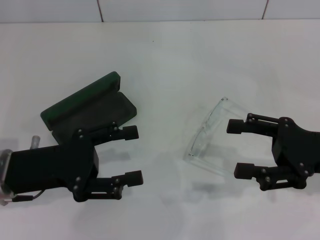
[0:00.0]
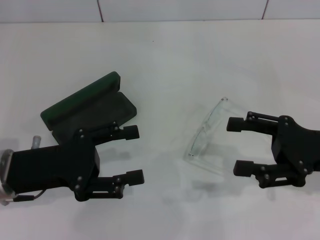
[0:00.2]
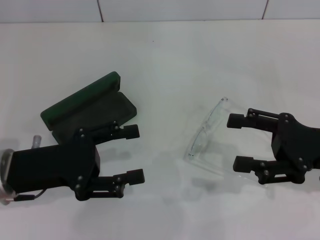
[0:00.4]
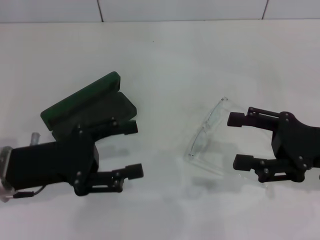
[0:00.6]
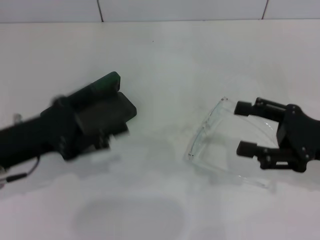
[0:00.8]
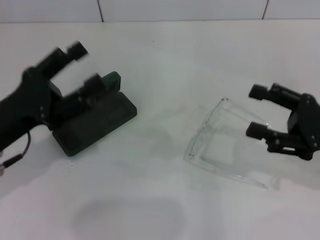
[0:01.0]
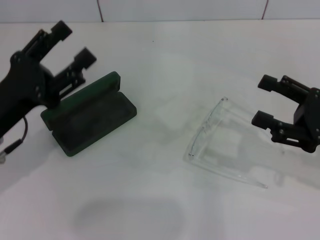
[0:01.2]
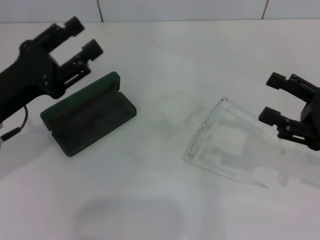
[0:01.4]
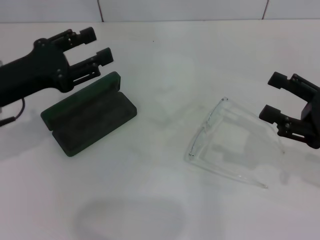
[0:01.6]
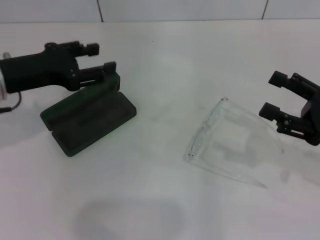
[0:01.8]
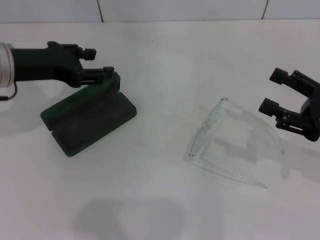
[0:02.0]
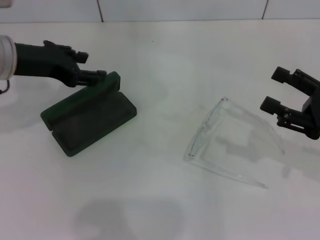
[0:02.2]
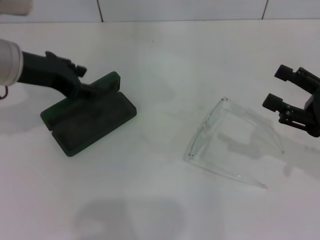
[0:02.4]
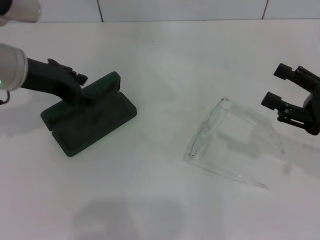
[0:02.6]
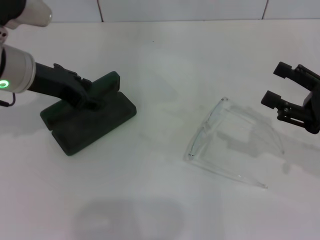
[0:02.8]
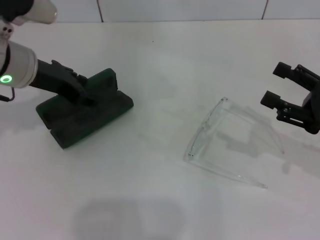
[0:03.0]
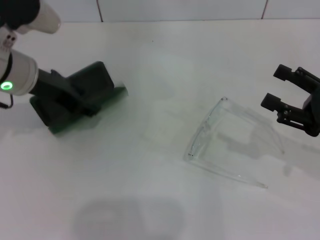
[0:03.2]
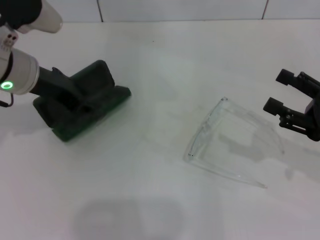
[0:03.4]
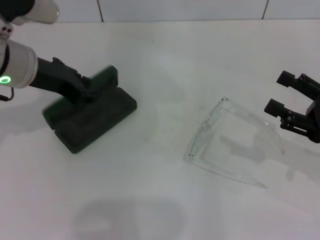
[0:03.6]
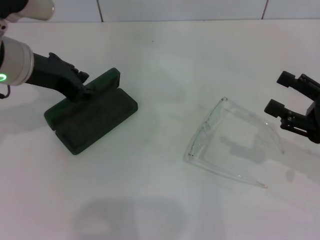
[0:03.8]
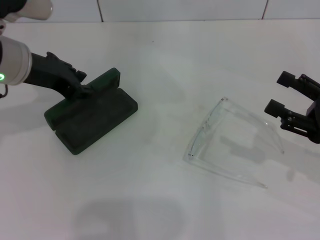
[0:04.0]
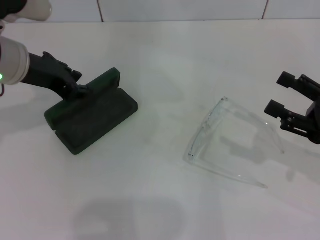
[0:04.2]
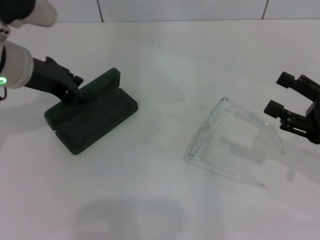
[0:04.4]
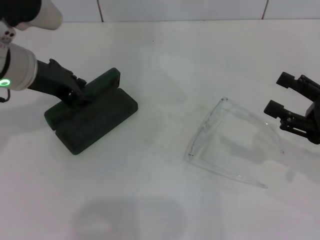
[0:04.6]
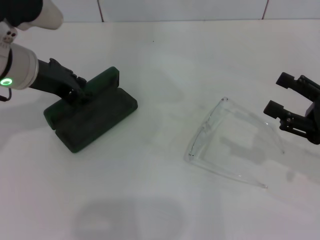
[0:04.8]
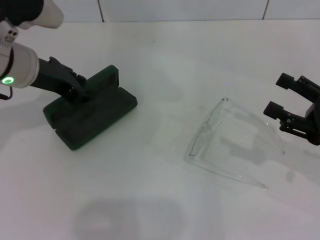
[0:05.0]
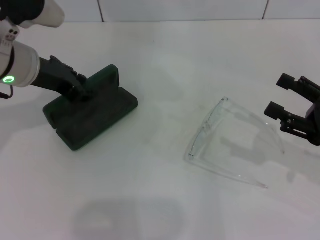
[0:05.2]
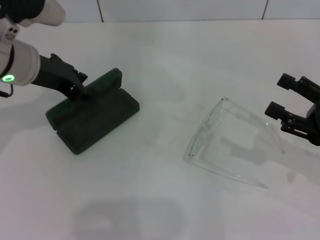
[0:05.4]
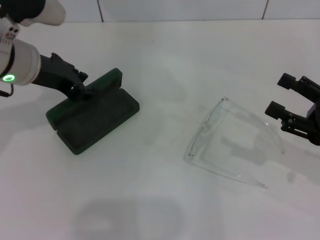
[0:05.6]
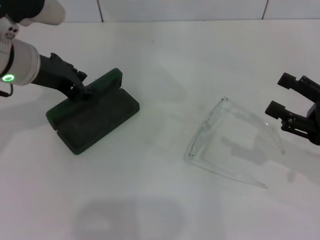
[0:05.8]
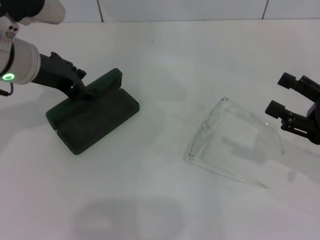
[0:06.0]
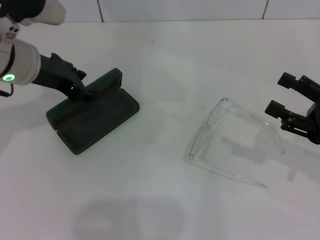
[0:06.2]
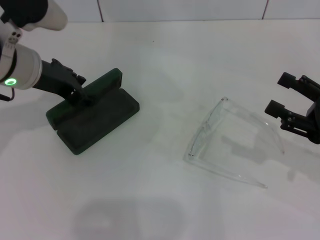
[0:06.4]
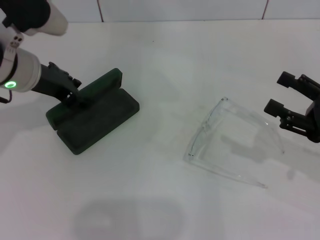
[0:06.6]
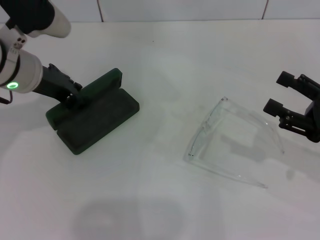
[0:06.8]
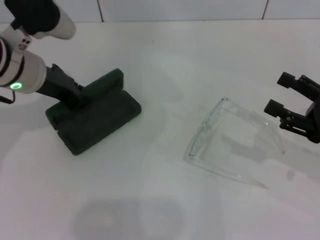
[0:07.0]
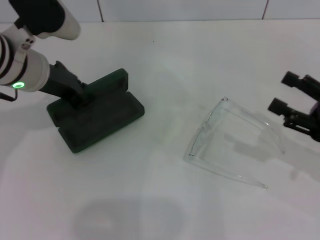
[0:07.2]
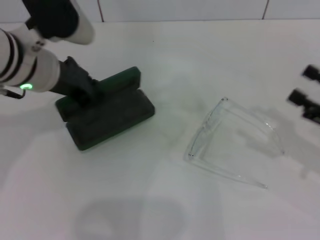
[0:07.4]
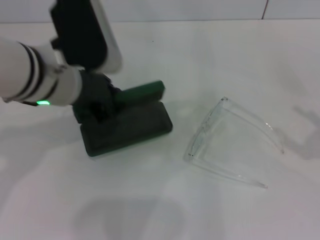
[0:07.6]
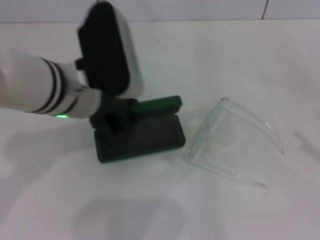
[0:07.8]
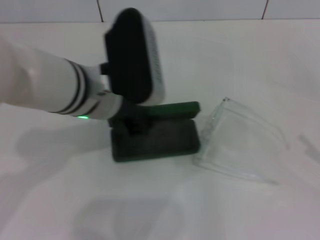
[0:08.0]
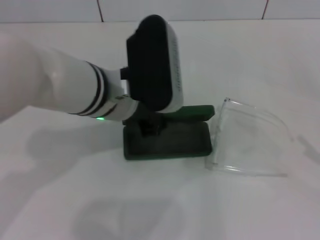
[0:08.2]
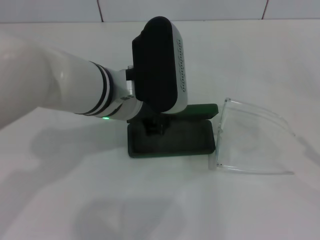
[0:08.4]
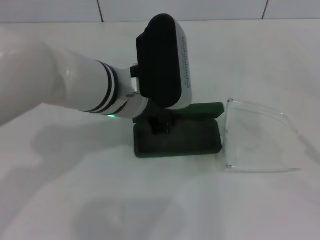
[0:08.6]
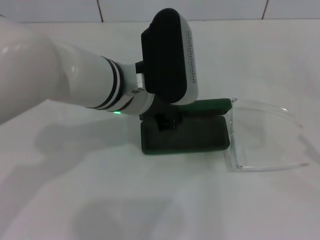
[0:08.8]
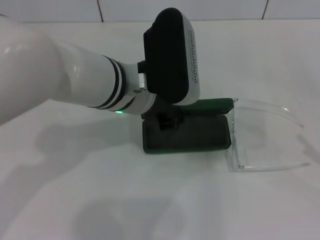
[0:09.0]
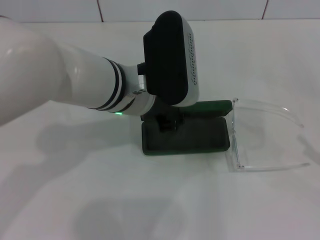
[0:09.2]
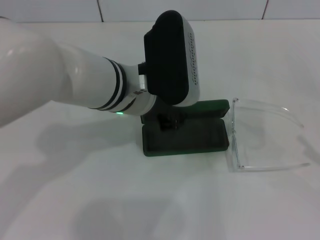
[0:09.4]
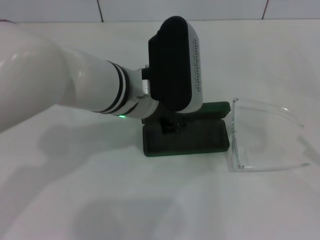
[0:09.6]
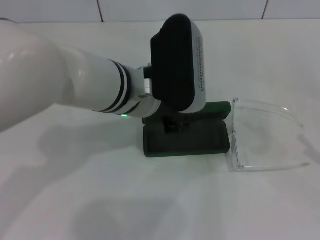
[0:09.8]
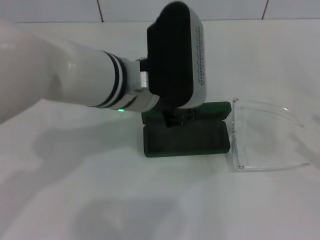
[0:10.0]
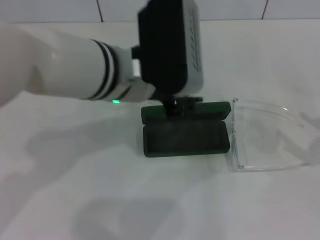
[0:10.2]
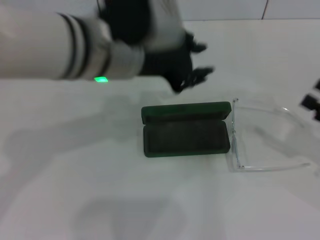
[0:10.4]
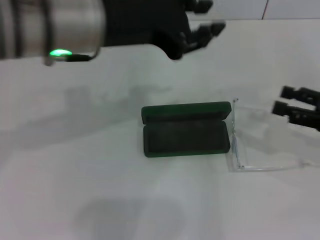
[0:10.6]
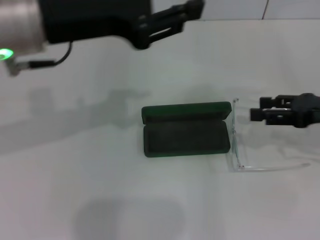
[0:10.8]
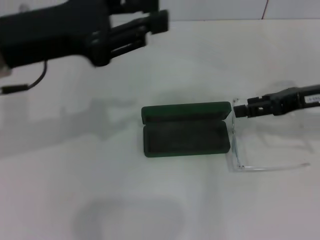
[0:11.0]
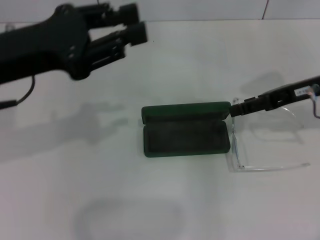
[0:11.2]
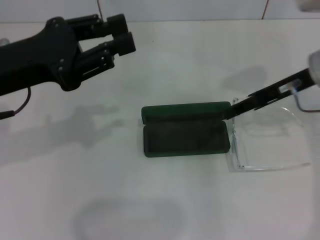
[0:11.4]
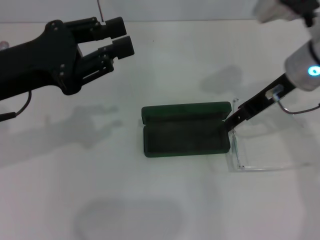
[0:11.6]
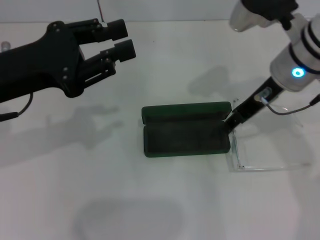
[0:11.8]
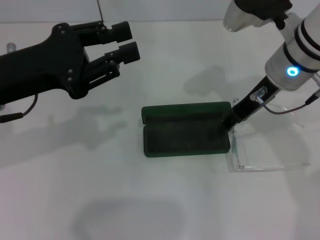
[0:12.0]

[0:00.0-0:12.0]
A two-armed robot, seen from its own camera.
Step, 0:00.0 to 0:07.0: Grab the glasses case with your left hand.
Step, 0:07.2 to 0:09.8: Place the glasses case in the center of the table with your left hand.
0:00.0 to 0:01.6: The left gripper travels forward by about 5 cm.
0:01.6 to 0:03.0: The left gripper shifts about 10 cm forward and to the right.
0:03.0 to 0:04.4: The grippers make only small movements.
0:04.4 to 0:06.0: Neither gripper changes place.
0:06.0 to 0:07.6: Both grippers travel together to the right, approximately 5 cm.
0:07.6 to 0:09.0: The left gripper travels to the right by roughly 10 cm.
0:09.0 to 0:10.4: The right gripper heads forward, covering roughly 5 cm. The left gripper heads upward, covering about 5 cm.
0:10.4 to 0:12.0: The left gripper heads to the left, covering roughly 15 cm. Meanwhile the right gripper moves to the left, forward and upward, roughly 25 cm.

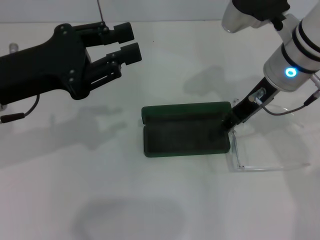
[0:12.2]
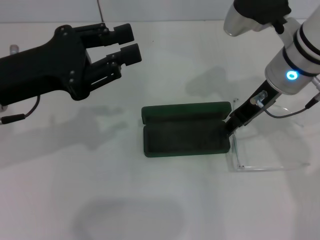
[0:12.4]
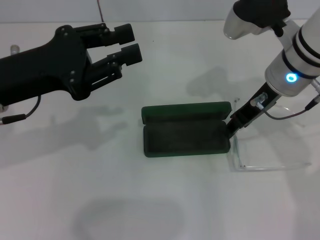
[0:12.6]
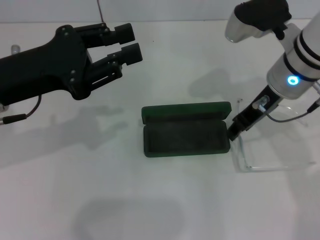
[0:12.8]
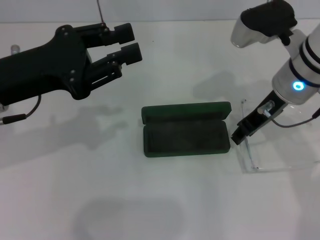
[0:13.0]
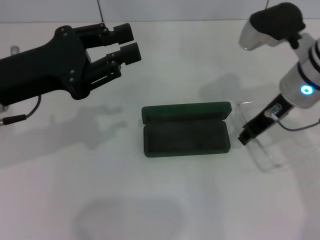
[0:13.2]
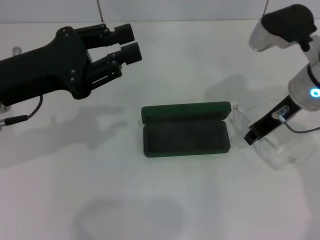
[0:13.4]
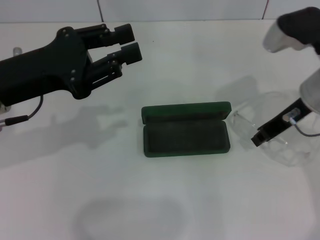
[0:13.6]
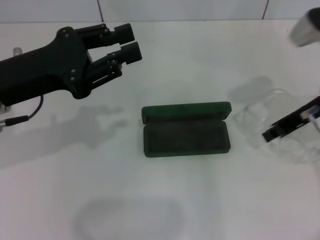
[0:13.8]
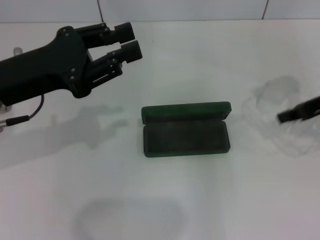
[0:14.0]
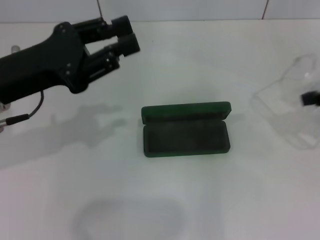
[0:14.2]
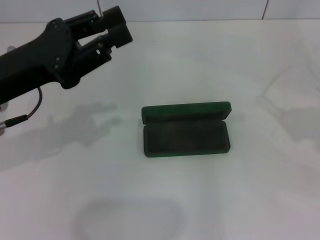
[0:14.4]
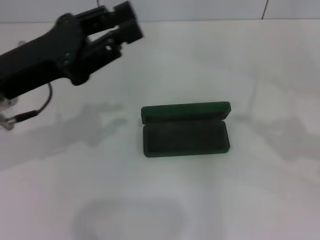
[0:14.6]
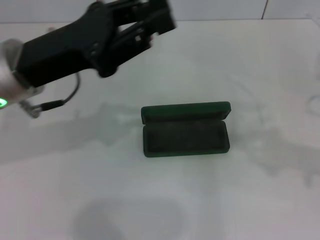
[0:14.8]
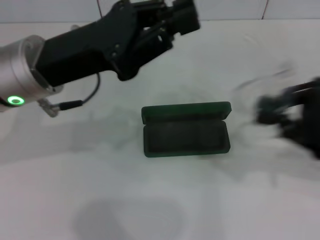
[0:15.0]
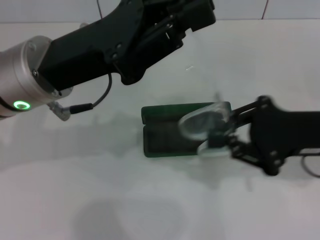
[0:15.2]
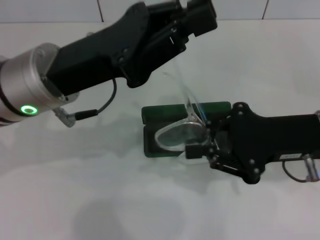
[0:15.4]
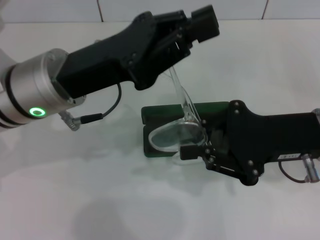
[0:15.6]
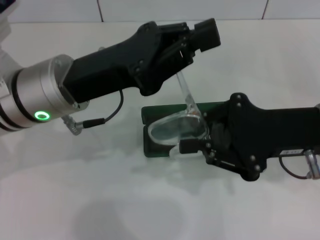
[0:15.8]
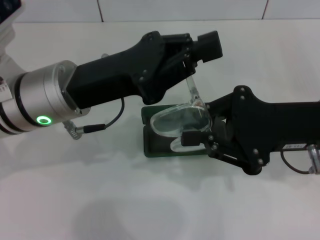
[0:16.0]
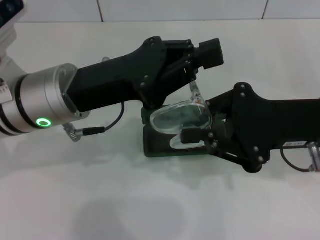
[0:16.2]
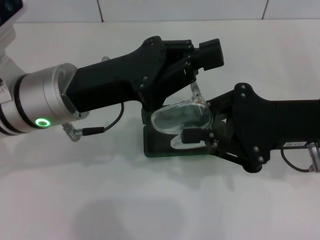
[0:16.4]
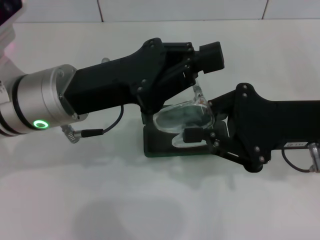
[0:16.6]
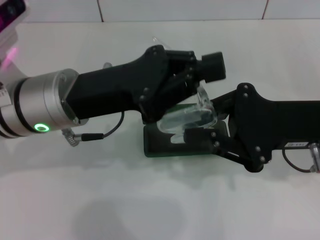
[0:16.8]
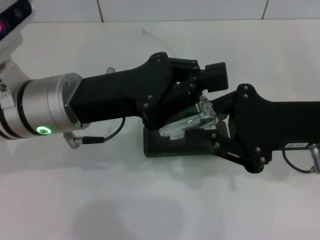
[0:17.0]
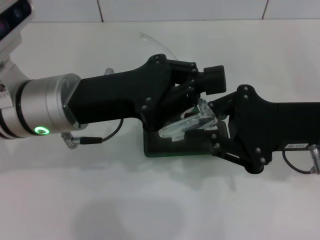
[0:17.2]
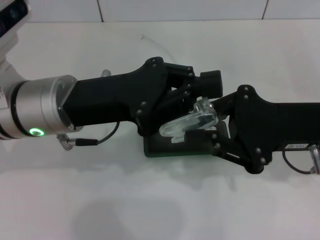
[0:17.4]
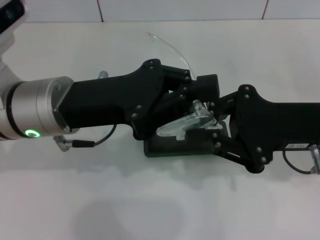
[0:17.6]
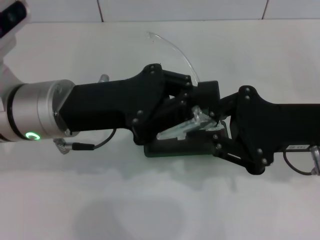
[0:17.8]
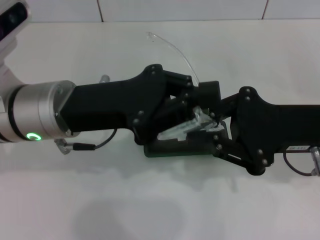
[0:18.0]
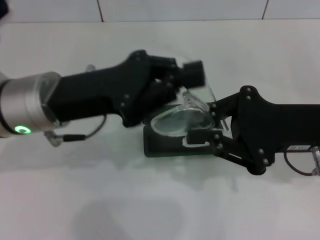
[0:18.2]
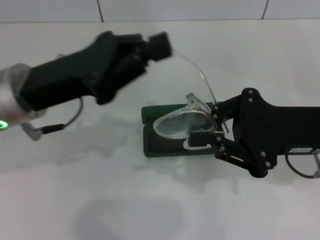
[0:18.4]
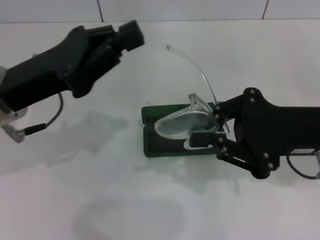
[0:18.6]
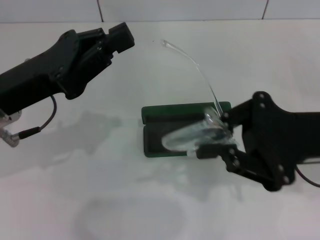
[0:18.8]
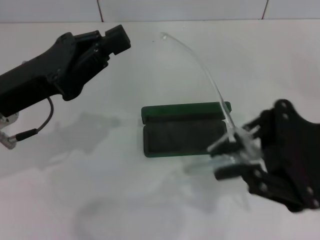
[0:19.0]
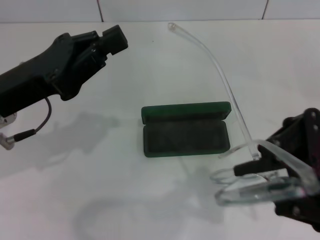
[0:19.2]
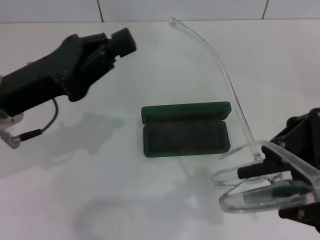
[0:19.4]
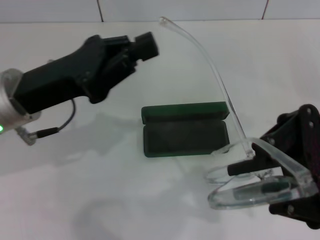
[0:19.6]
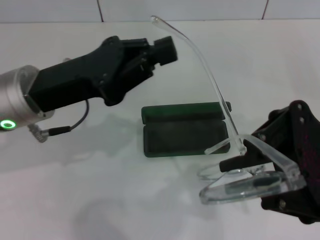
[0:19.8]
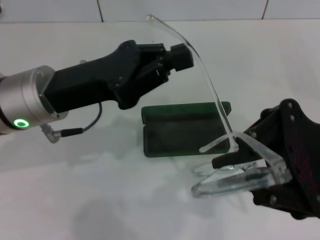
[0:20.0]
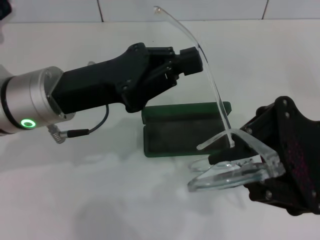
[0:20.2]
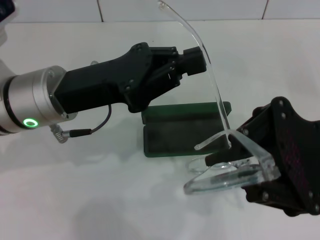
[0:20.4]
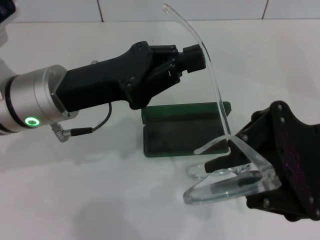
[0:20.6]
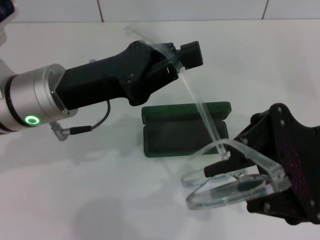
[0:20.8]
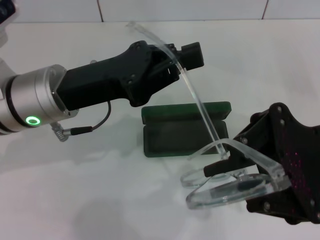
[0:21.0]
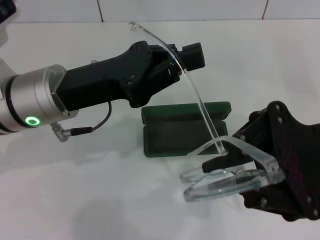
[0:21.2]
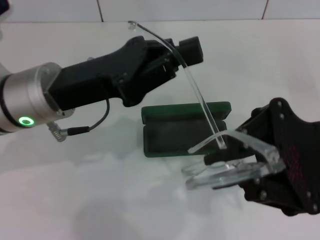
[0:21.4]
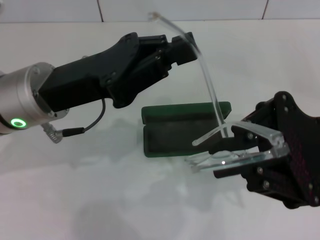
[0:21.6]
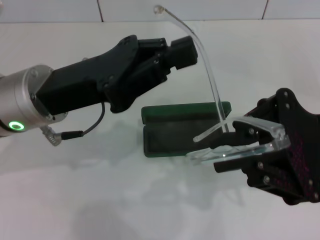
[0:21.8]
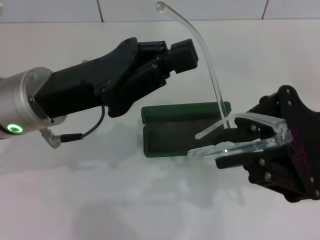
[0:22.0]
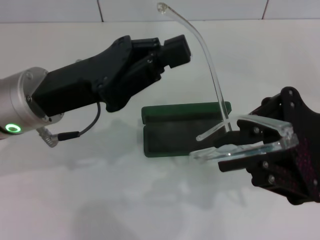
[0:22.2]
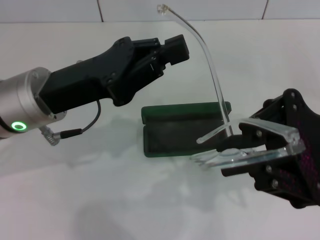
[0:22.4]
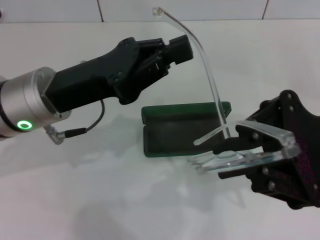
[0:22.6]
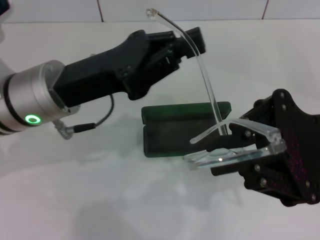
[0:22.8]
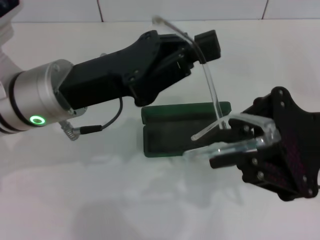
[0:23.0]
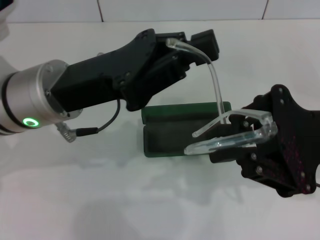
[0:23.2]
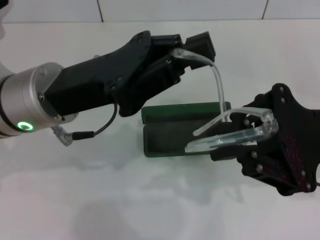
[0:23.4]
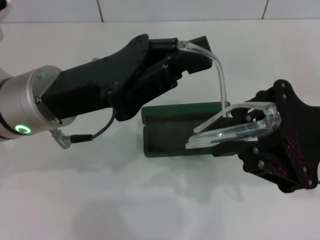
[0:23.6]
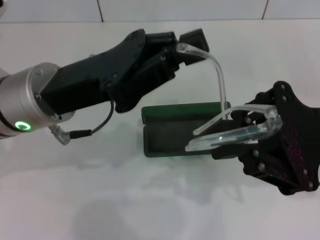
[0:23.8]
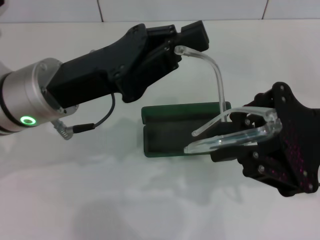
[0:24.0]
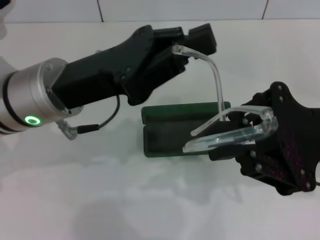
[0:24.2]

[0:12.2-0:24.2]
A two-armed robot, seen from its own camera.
0:12.2 to 0:13.8: The right gripper is displaced to the right by about 10 cm, and closes.
0:13.8 to 0:15.2: The left gripper heads to the right, covering some 10 cm, while the right gripper is displaced backward by about 10 cm, and reaches about 15 cm to the right, then returns.
0:16.6 to 0:18.2: There are only small adjustments of the grippers.
0:21.2 to 0:24.2: The grippers make only small movements.
